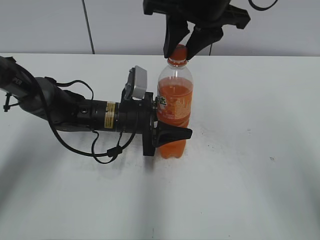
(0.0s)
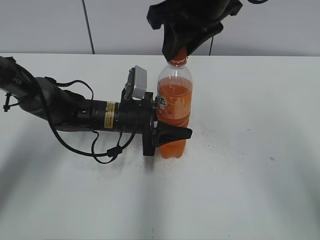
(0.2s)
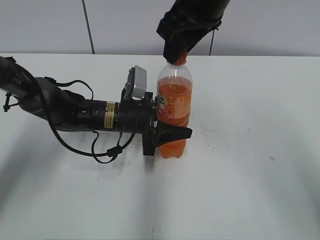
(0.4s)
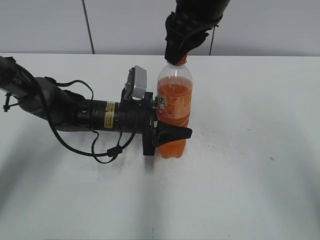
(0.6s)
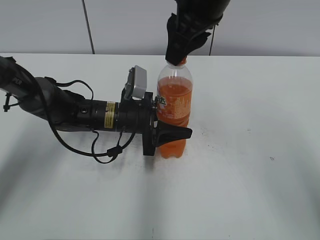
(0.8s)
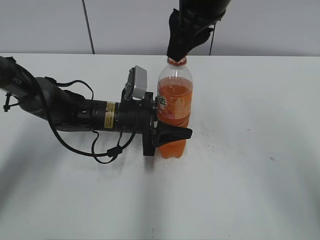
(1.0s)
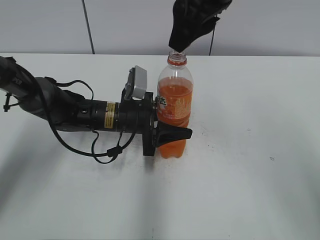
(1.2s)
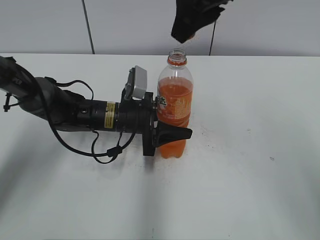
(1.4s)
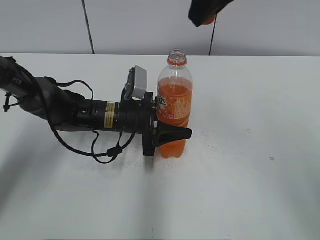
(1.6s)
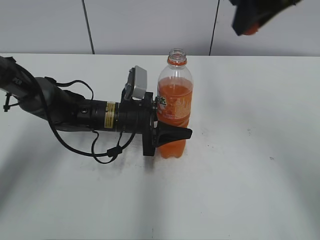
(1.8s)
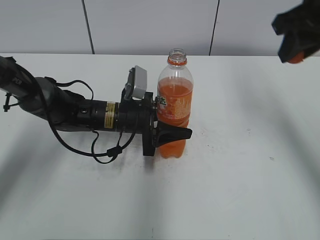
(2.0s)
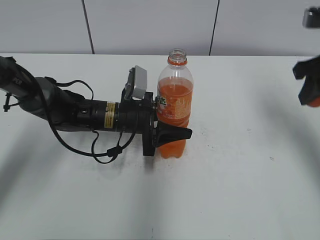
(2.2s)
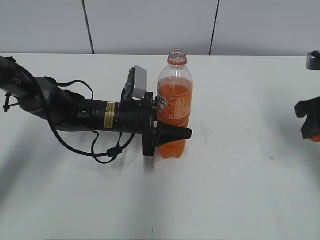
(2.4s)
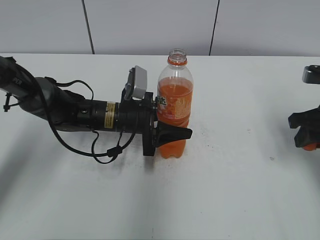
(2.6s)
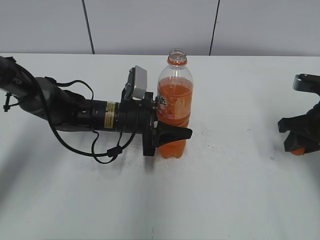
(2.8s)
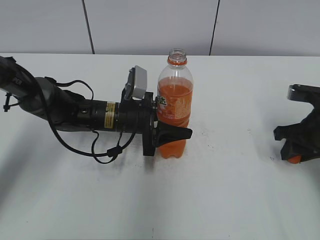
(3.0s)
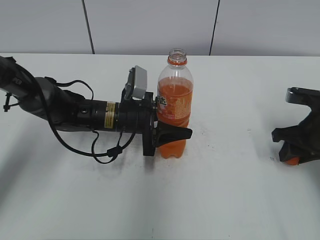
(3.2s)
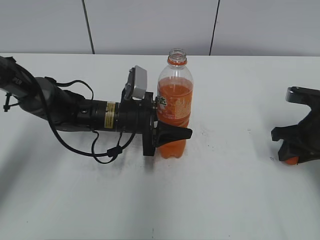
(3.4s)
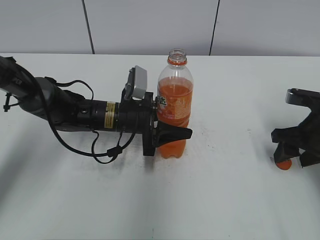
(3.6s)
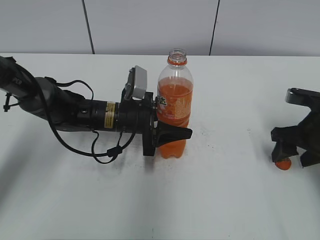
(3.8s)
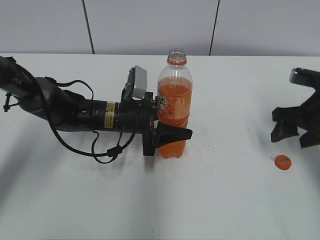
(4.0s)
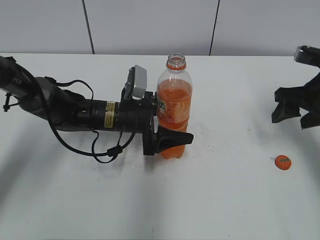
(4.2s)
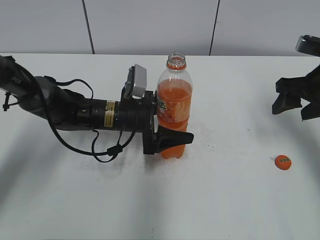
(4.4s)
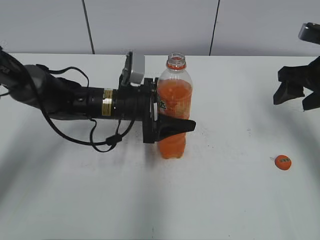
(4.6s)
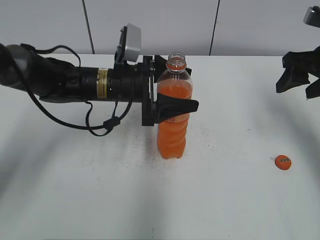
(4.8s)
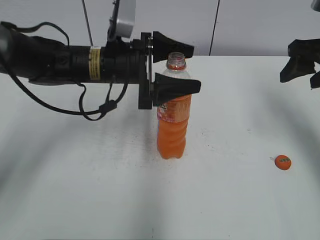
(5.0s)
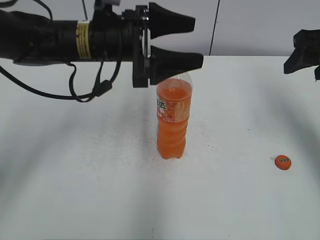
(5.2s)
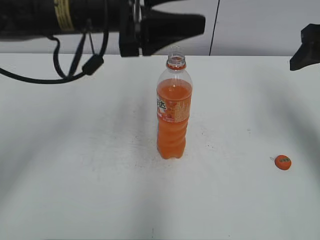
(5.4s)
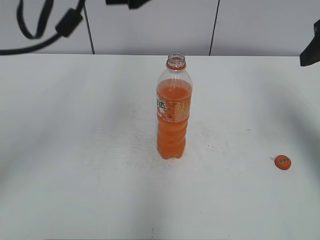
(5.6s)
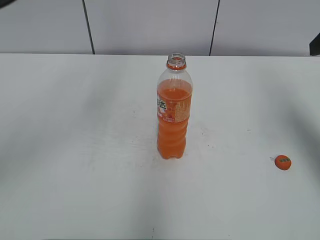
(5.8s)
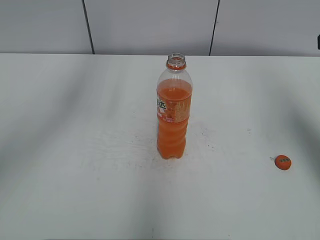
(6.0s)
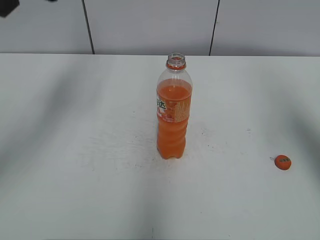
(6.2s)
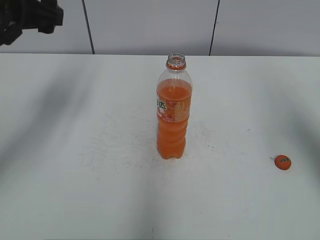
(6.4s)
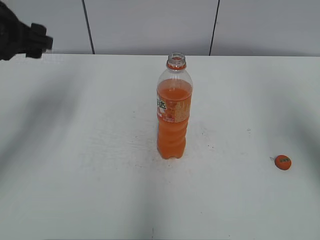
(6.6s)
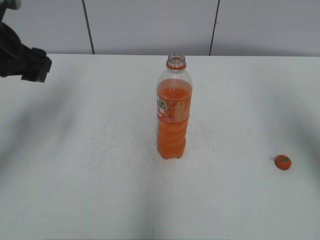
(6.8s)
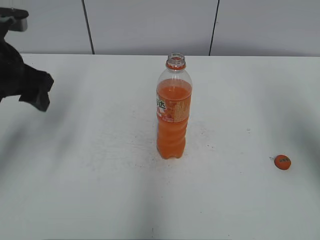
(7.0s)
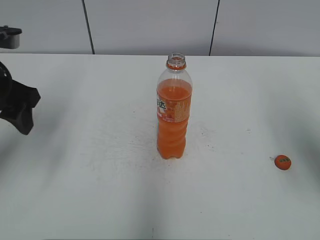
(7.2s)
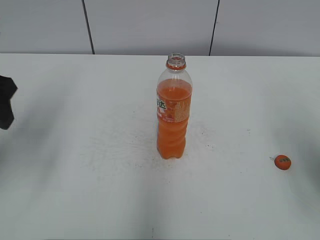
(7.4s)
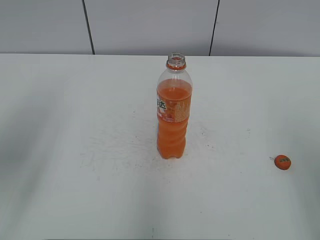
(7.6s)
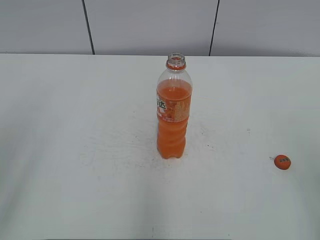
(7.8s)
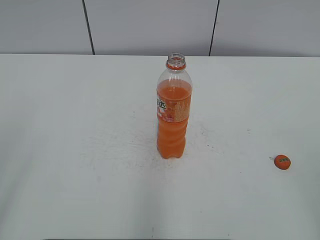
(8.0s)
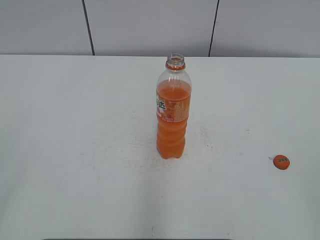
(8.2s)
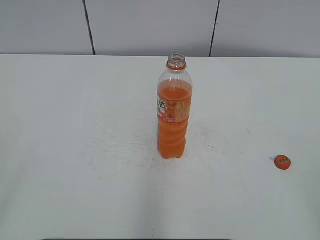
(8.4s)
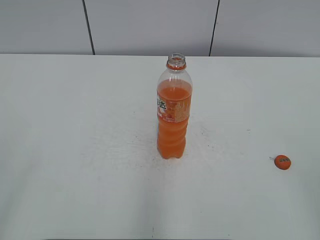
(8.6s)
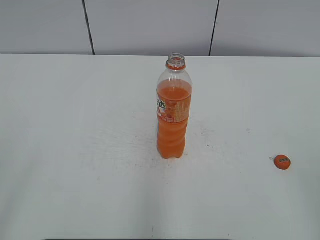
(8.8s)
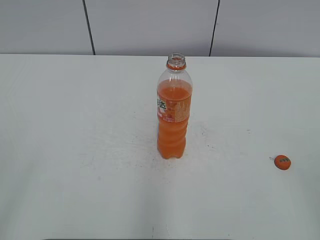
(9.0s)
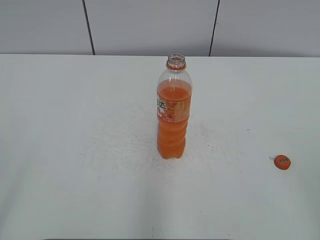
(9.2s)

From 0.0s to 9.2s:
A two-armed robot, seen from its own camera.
Step, from 1.2s to 3.8s: Place the bottle cap on the right.
From 0.0s to 1.6s: The right gripper heads upward, covering approximately 5 cm.
From 1.6s to 3.0s: The right gripper heads downward and to the right, covering approximately 30 cm.
From 3.0s to 4.6s: The left gripper opens. Meanwhile the right gripper moves upward, roughly 5 cm, and opens.
From 4.6s to 6.2s: The right gripper moves upward and backward, about 15 cm. Meanwhile the left gripper shifts roughly 30 cm upward and to the left.
From 6.2s to 7.6s: The left gripper goes some 15 cm backward and to the left; the right gripper shifts approximately 15 cm backward and downward.
From 7.6s to 9.2s: The left gripper moves backward, about 20 cm.
